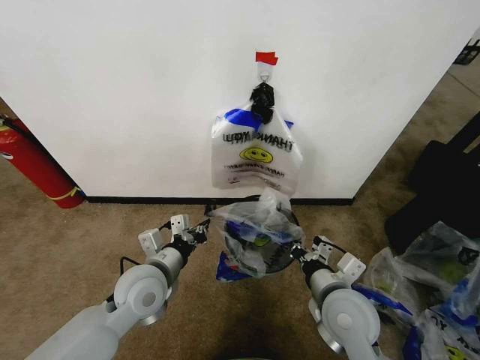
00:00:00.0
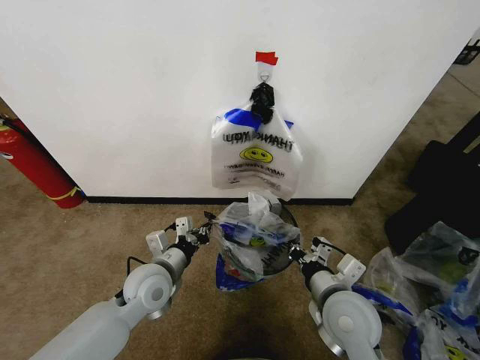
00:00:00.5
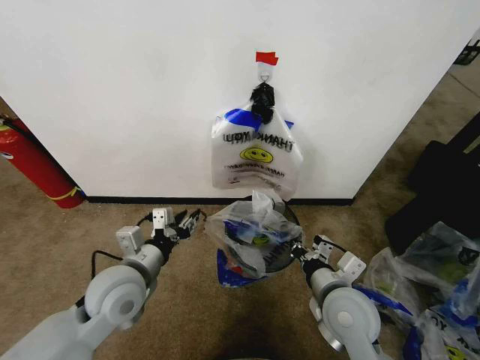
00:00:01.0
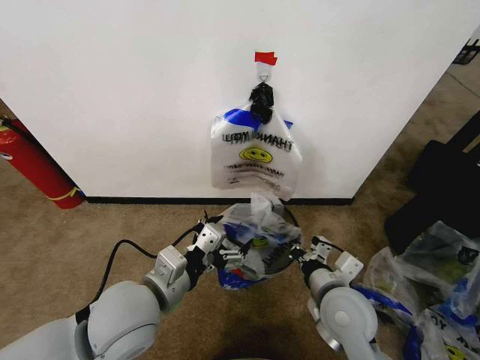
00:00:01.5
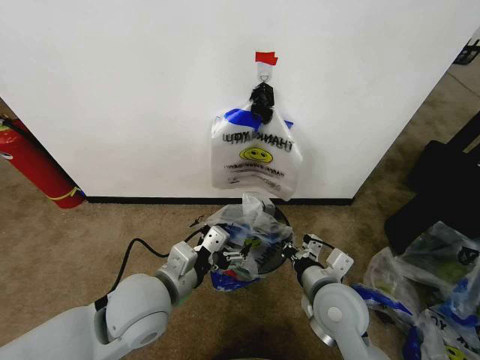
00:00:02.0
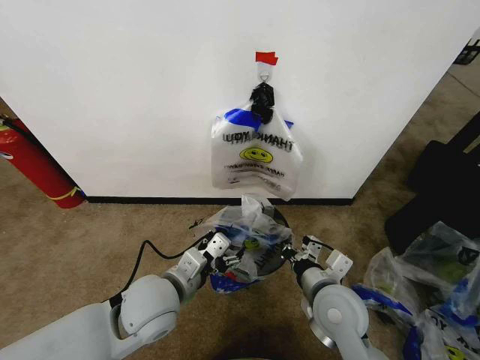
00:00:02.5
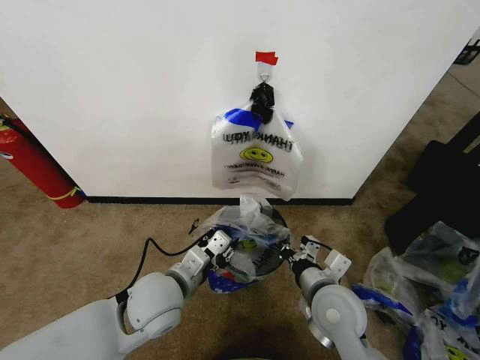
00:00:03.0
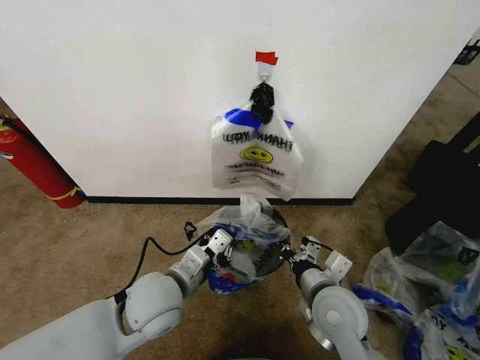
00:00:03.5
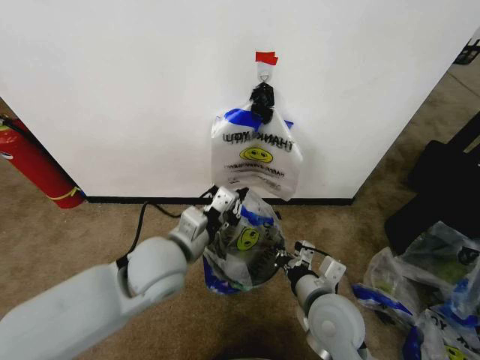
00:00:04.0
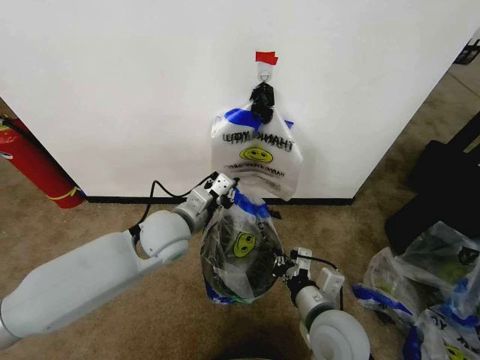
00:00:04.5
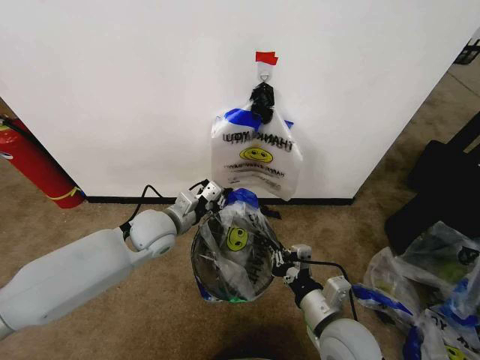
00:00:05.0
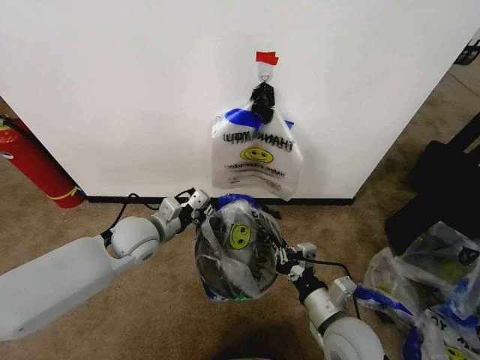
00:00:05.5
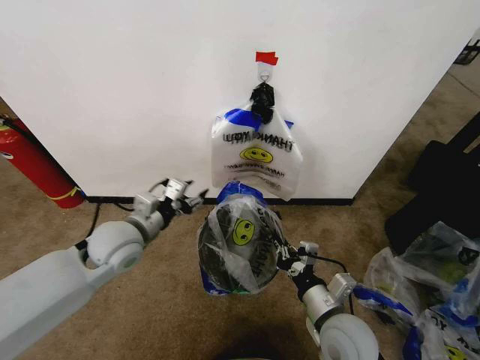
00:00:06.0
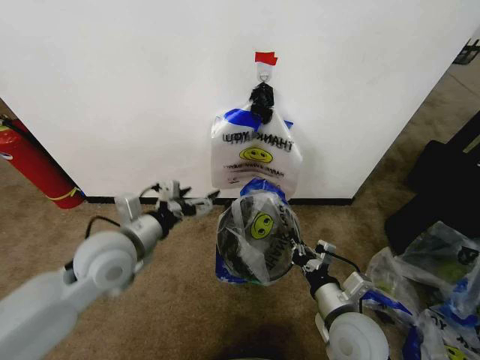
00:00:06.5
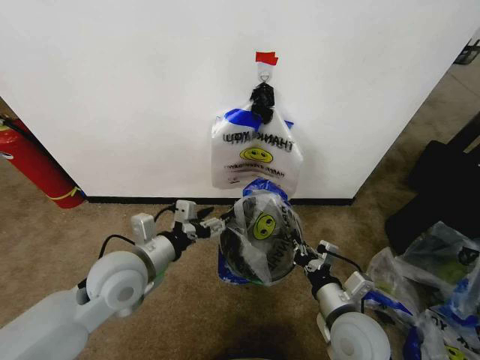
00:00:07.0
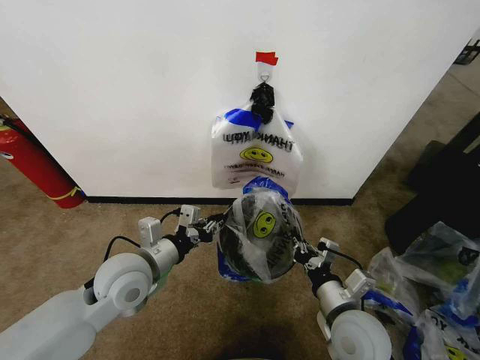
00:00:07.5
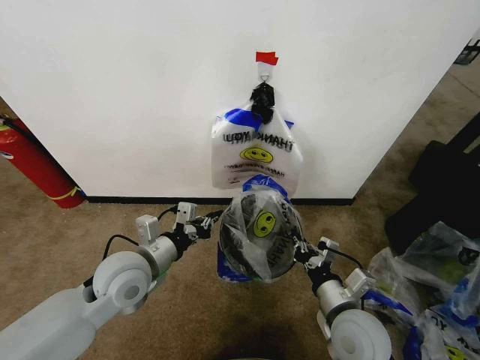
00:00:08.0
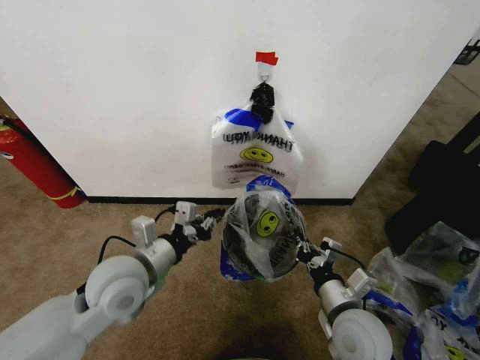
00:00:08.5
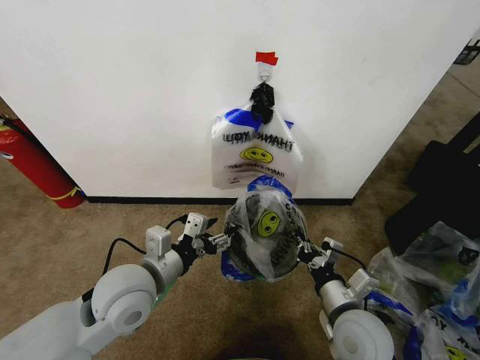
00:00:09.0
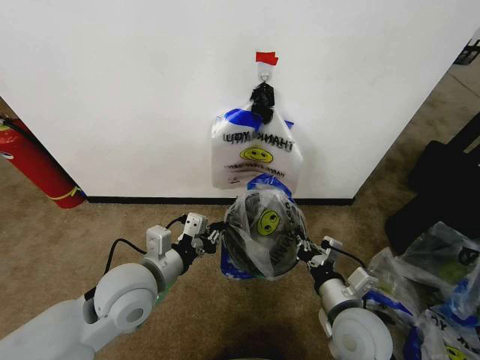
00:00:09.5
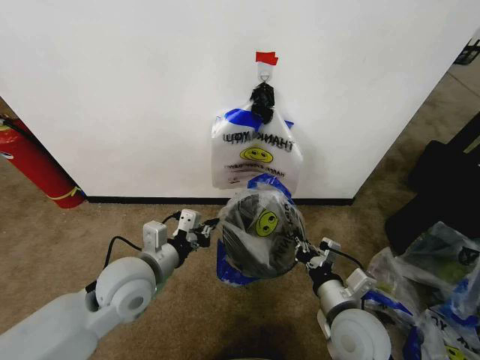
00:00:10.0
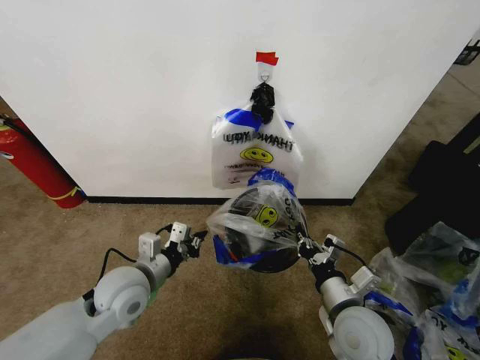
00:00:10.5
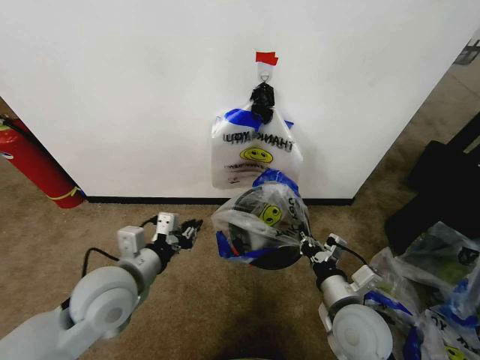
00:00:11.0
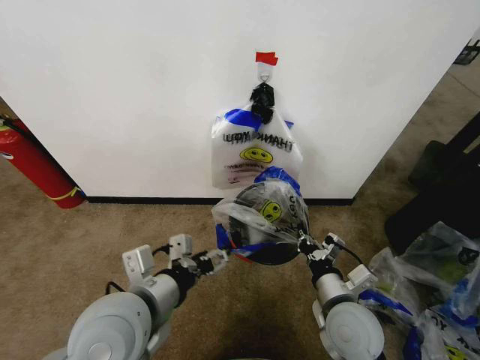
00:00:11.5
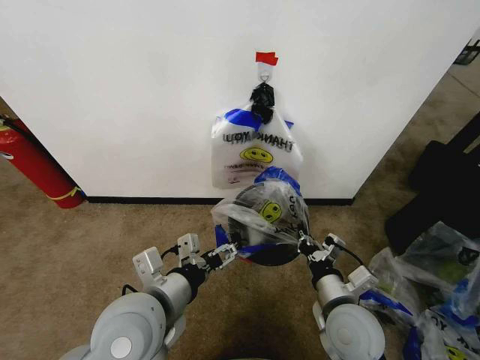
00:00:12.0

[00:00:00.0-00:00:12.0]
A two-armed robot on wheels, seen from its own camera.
Task of the whole recording: Pick up the garbage bag from the wall and place it over the trash bin.
00:00:00.0 to 00:00:02.0: The left gripper heads upward and backward, covering roughly 10 cm, and opens its fingers.
00:00:02.0 to 00:00:04.0: The left gripper goes roughly 5 cm forward, and closes up.
00:00:04.0 to 00:00:06.0: The left gripper shifts some 10 cm to the left and forward, and opens.
00:00:06.0 to 00:00:08.0: The left gripper goes some 5 cm backward, and closes up.
00:00:08.0 to 00:00:10.0: The left gripper opens, then closes again.
00:00:10.0 to 00:00:12.0: The left gripper moves backward, approximately 5 cm, goes upward and returns, approximately 5 cm each way, and opens.

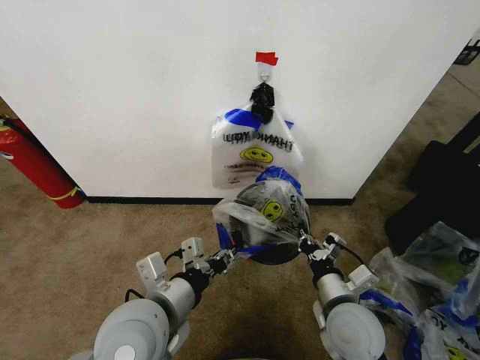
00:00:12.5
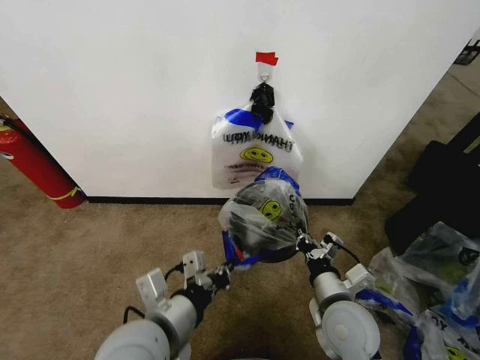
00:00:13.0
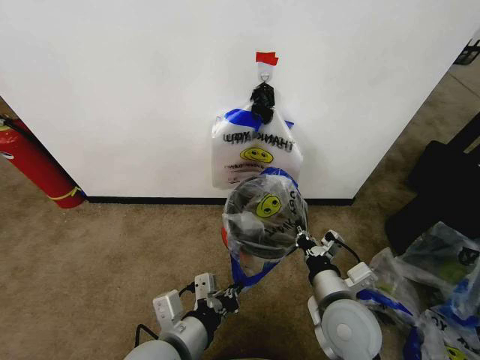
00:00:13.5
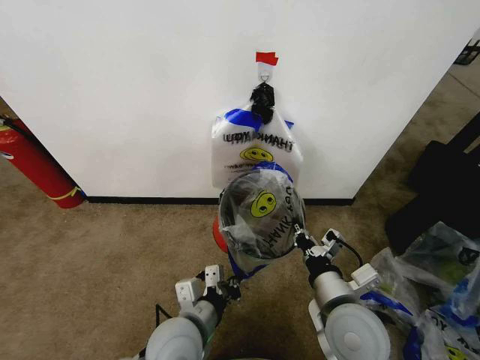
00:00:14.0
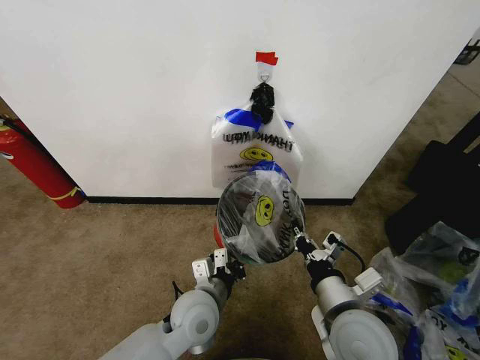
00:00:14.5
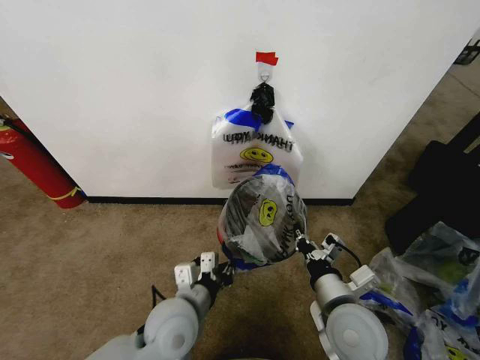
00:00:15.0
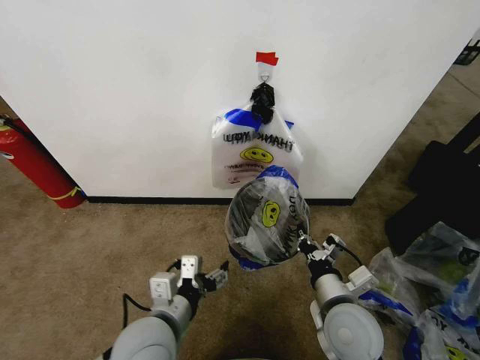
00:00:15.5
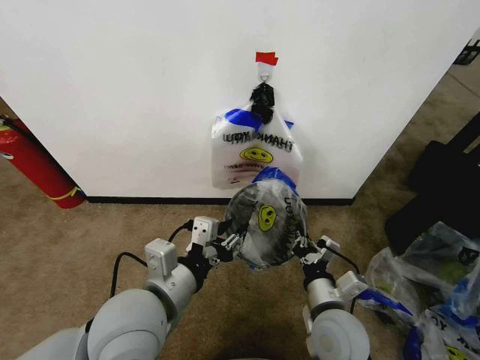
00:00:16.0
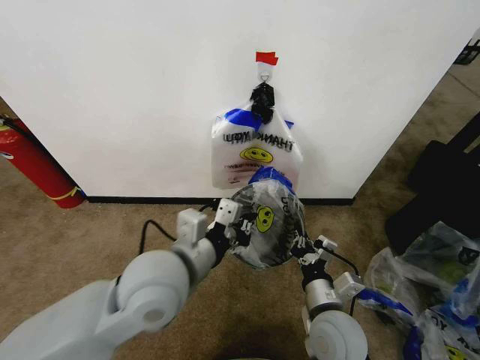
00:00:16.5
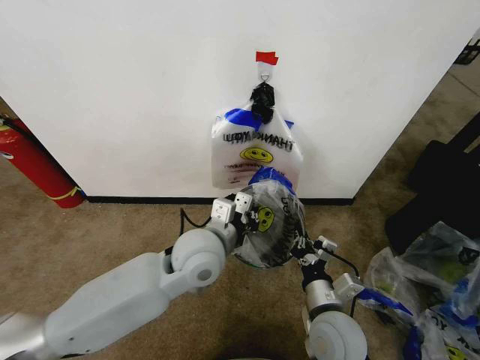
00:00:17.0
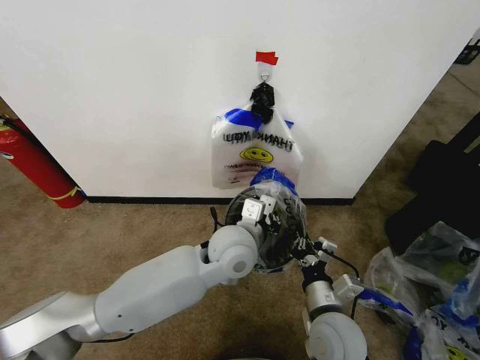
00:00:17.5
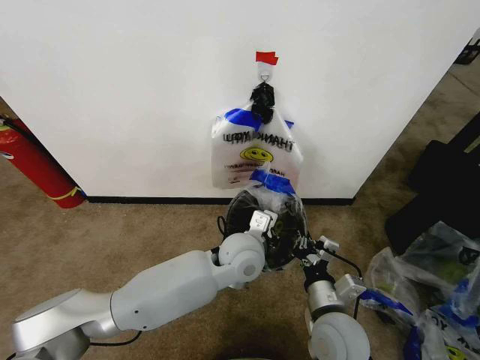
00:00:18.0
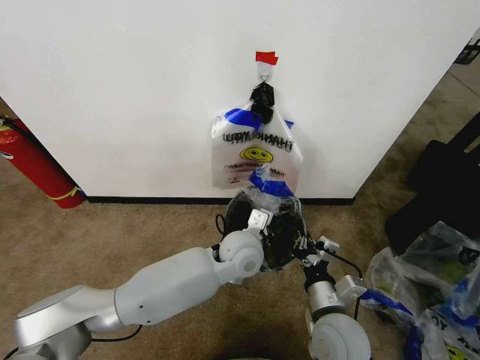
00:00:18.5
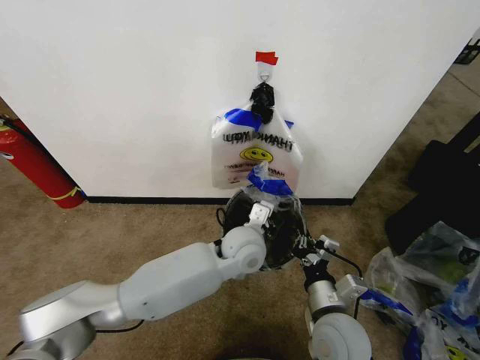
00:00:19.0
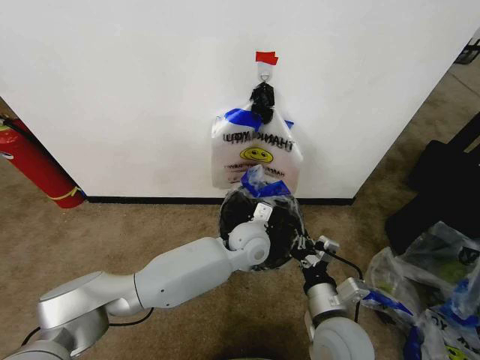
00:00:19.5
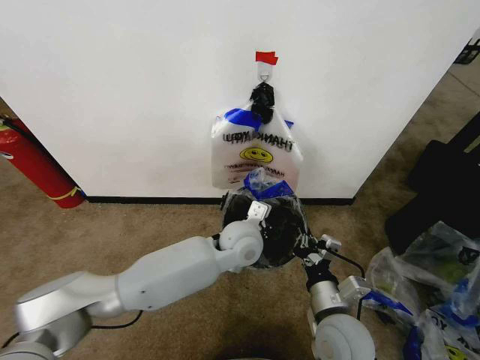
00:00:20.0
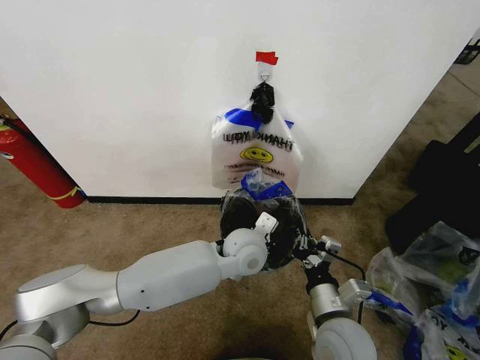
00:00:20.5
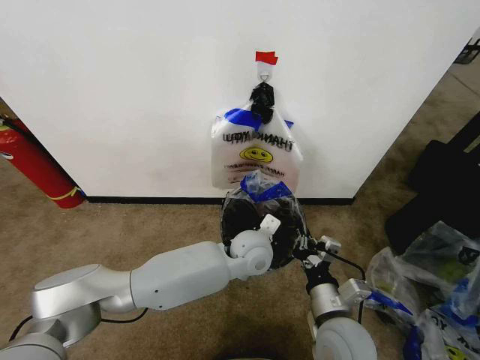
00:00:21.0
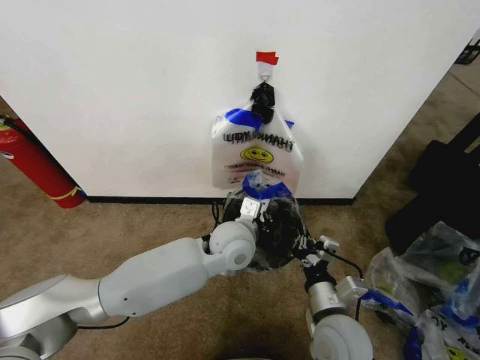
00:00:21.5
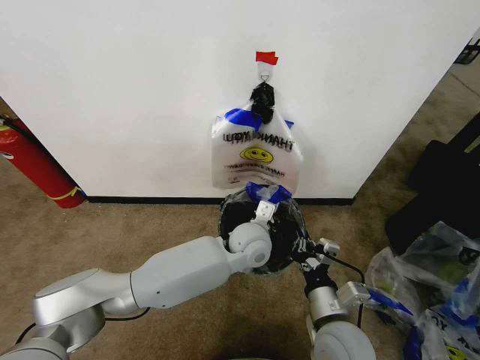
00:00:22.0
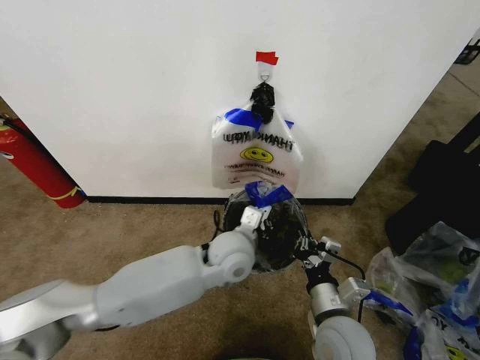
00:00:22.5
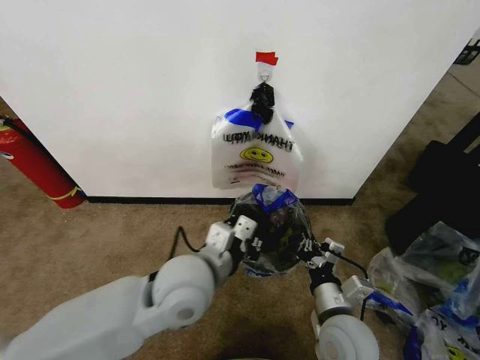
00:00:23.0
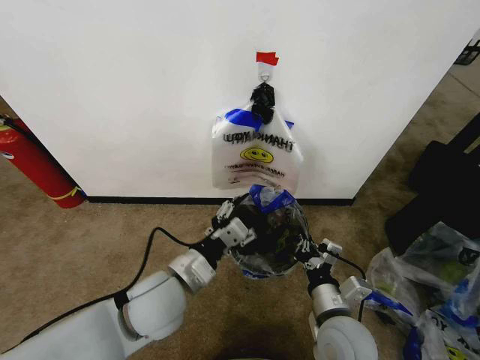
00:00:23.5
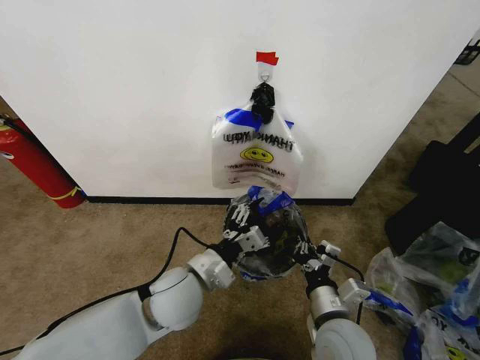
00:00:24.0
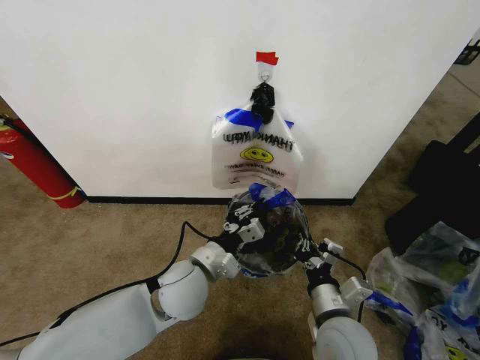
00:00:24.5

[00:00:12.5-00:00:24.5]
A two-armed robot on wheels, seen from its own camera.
Task of the whole recording: Pick up the garbage bag from the wall and place it over the trash bin.
00:00:12.5 to 00:00:14.5: The right gripper shifts by approximately 5 cm; the left gripper heads downward, forward and to the right, covering approximately 15 cm.
00:00:14.5 to 00:00:16.5: The right gripper shifts approximately 5 cm downward; the left gripper shifts about 15 cm upward, and opens, then closes once more.
00:00:16.5 to 00:00:18.5: The left gripper moves to the right, downward and forward, roughly 20 cm.
00:00:18.5 to 00:00:20.5: The grippers move only a little.
00:00:22.5 to 00:00:24.5: The left gripper travels to the left and backward by approximately 10 cm, and opens, then closes again.

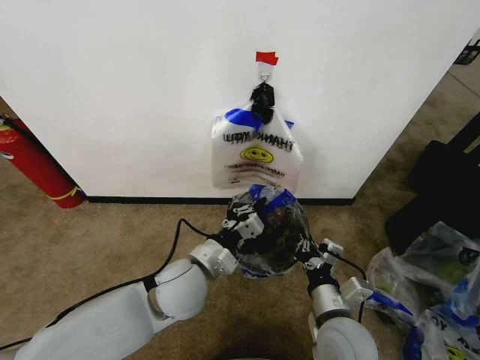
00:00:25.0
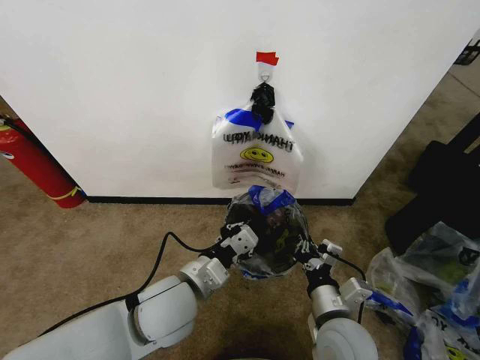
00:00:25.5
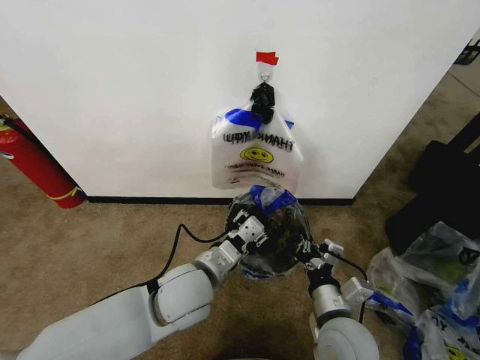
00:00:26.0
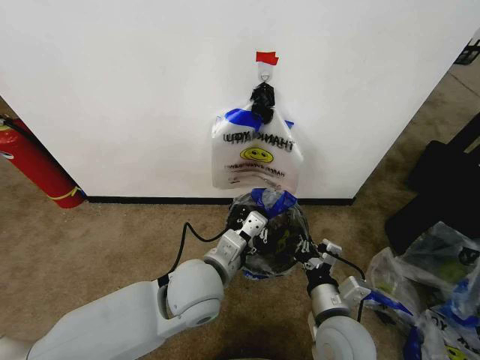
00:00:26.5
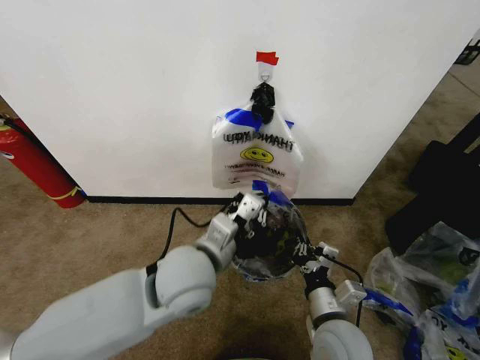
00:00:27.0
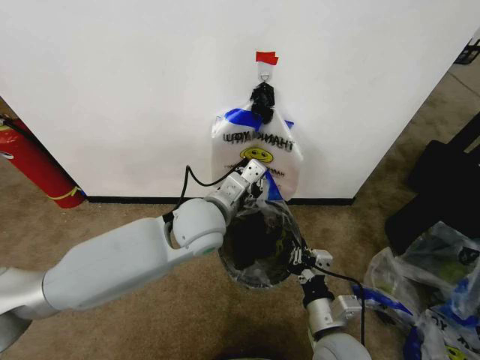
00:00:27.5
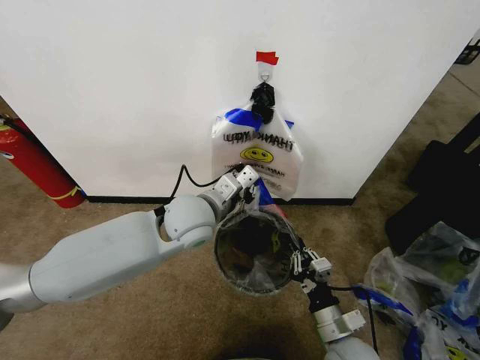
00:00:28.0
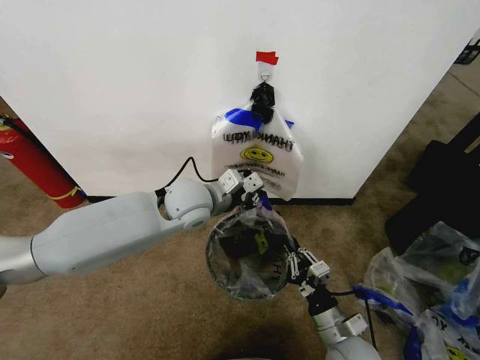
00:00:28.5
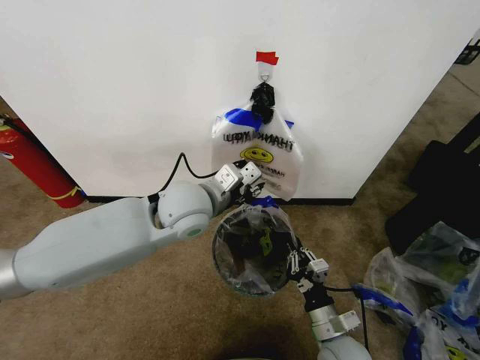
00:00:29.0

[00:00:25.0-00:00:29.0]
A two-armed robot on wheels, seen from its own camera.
Task of the whole recording: Pick up the garbage bag from the wall and place it over the trash bin.
00:00:25.0 to 00:00:27.0: The left gripper is displaced upward by about 5 cm, and opens and closes again.
00:00:27.0 to 00:00:29.0: The left gripper goes some 15 cm forward and upward, and opens its fingers. Meanwhile the right gripper heads downward, covering some 10 cm.
